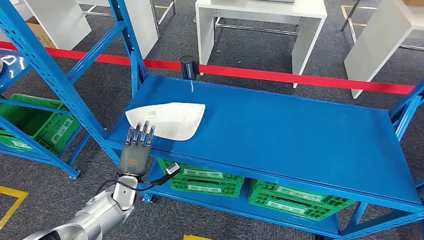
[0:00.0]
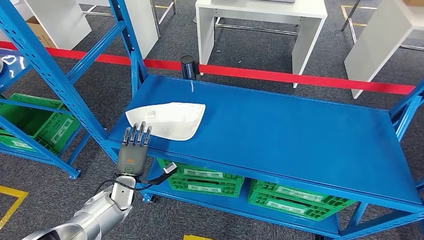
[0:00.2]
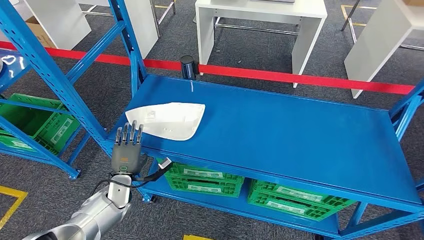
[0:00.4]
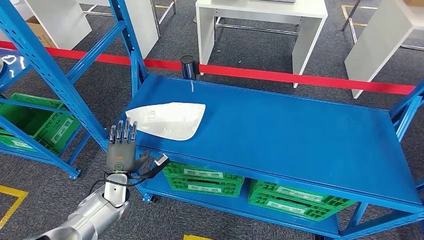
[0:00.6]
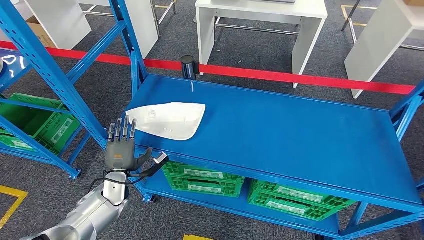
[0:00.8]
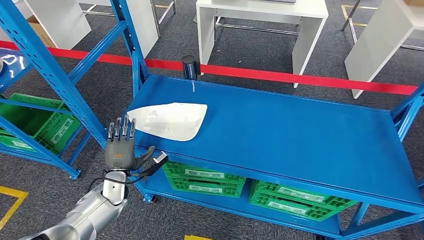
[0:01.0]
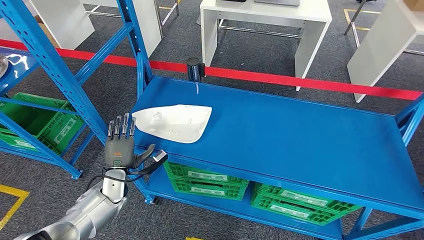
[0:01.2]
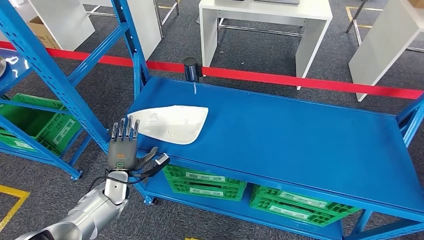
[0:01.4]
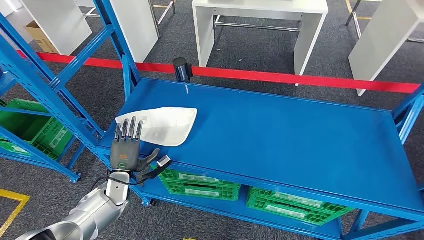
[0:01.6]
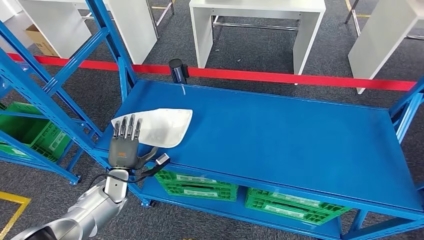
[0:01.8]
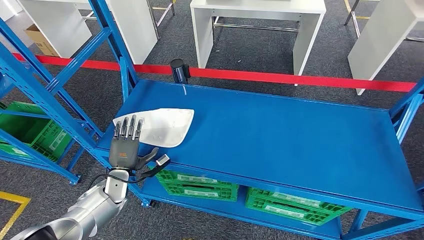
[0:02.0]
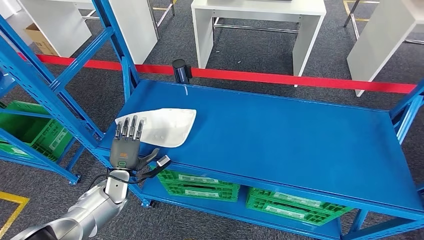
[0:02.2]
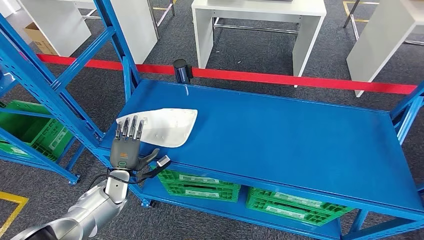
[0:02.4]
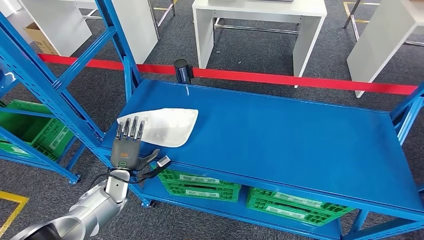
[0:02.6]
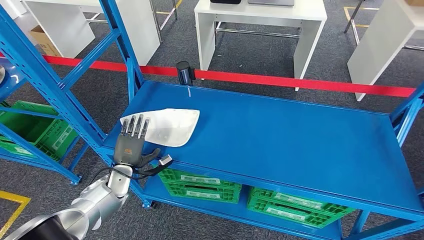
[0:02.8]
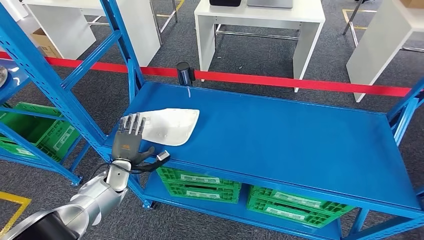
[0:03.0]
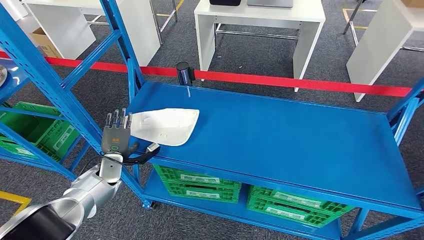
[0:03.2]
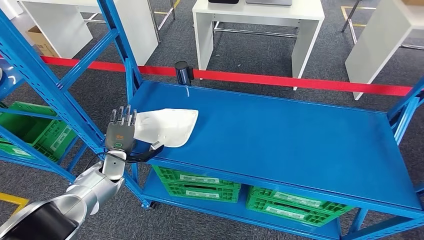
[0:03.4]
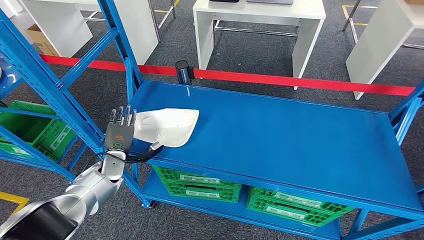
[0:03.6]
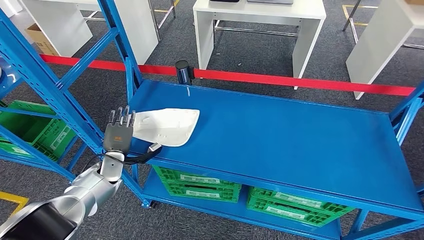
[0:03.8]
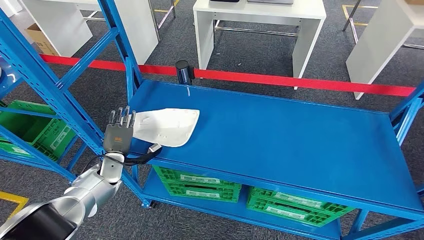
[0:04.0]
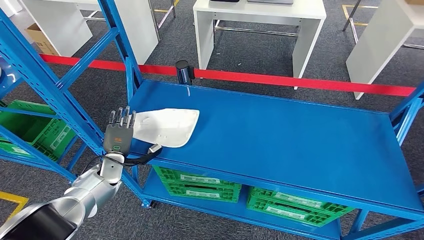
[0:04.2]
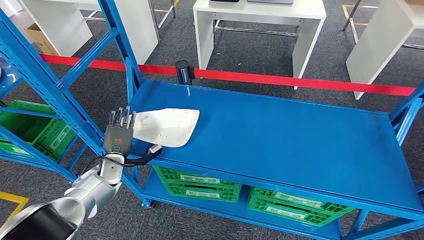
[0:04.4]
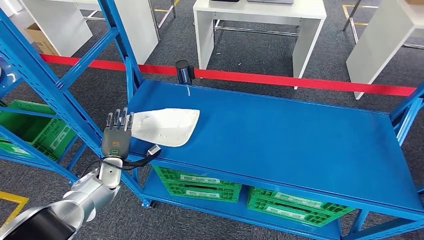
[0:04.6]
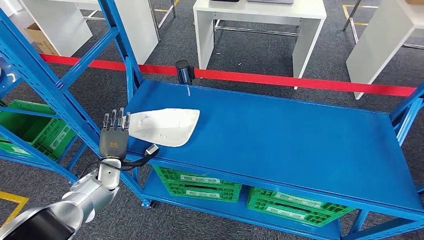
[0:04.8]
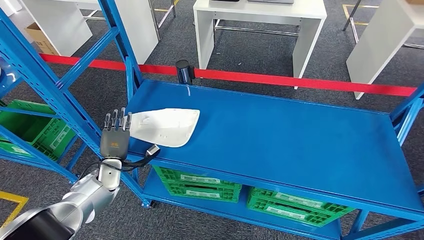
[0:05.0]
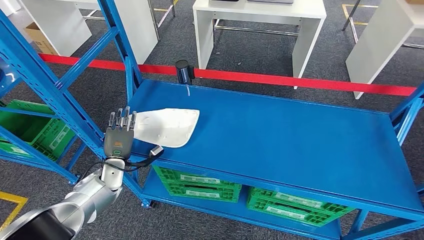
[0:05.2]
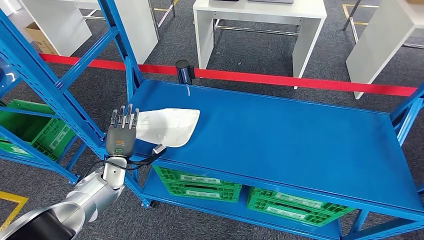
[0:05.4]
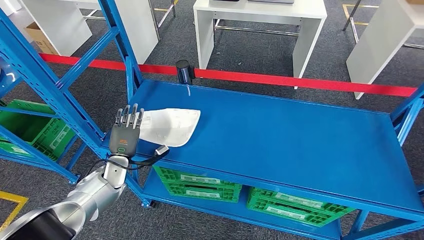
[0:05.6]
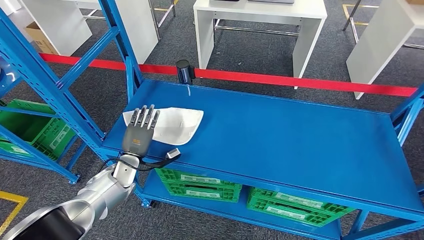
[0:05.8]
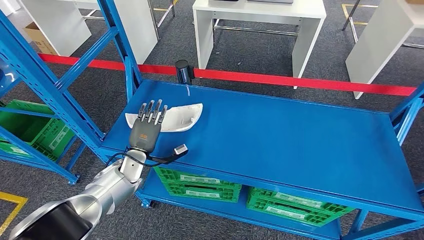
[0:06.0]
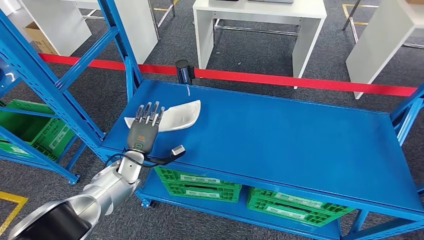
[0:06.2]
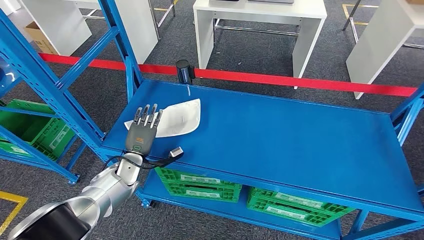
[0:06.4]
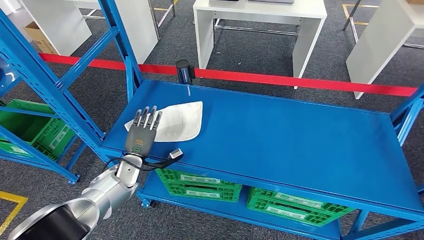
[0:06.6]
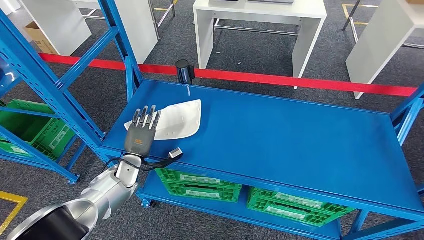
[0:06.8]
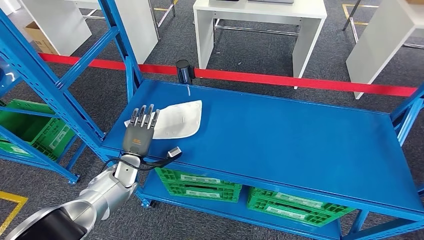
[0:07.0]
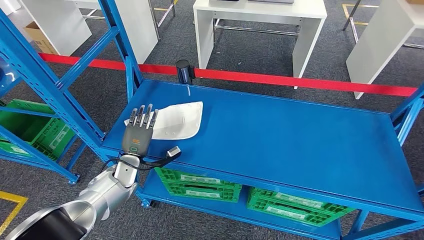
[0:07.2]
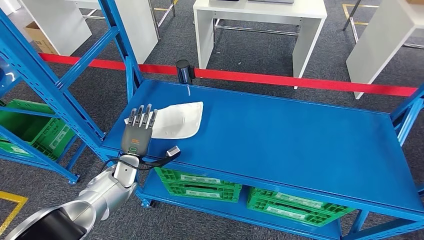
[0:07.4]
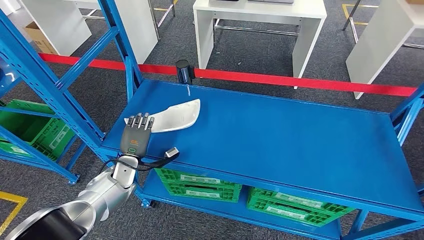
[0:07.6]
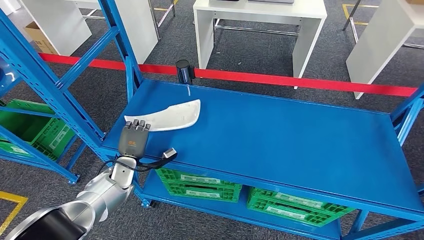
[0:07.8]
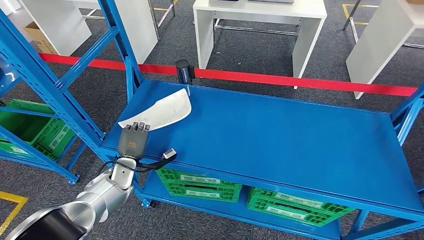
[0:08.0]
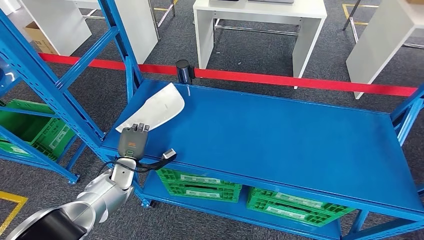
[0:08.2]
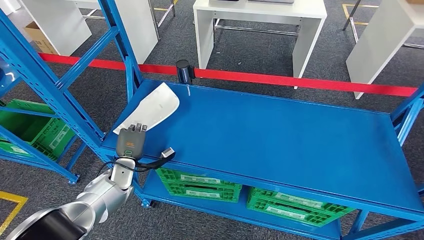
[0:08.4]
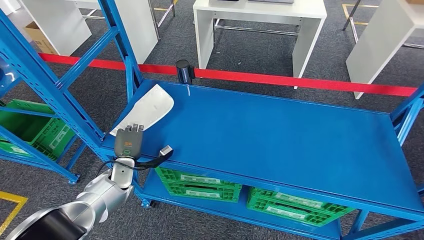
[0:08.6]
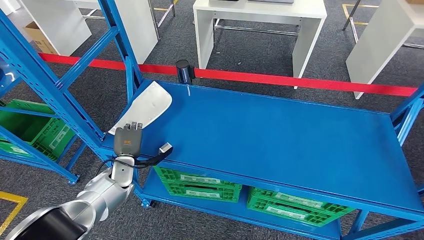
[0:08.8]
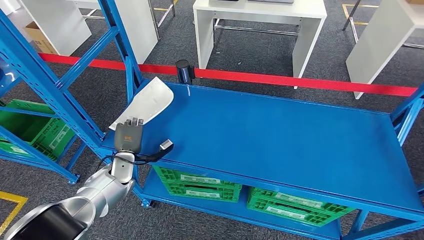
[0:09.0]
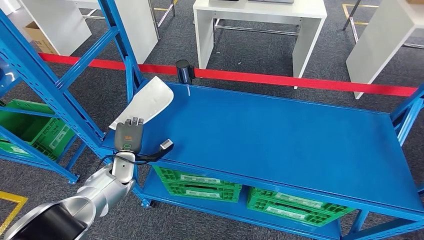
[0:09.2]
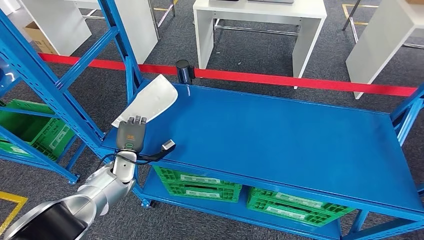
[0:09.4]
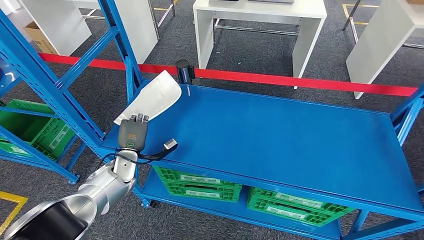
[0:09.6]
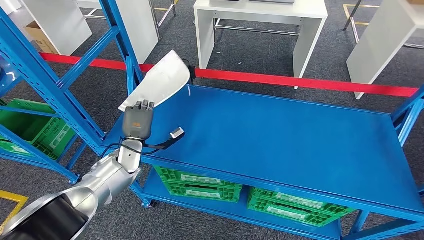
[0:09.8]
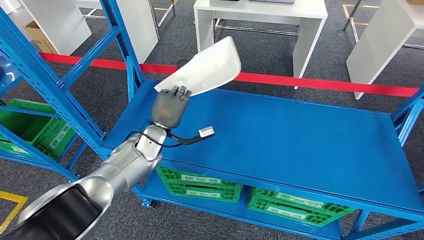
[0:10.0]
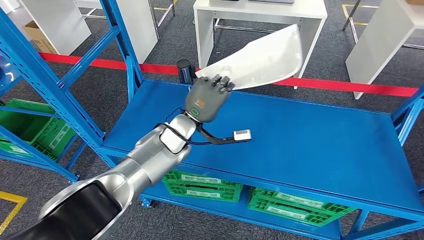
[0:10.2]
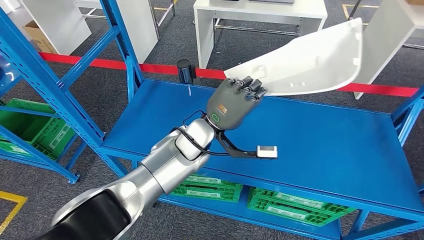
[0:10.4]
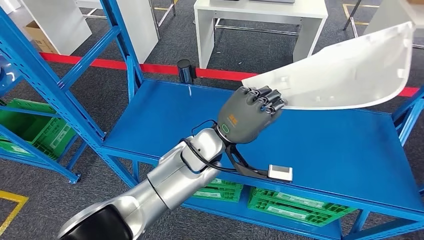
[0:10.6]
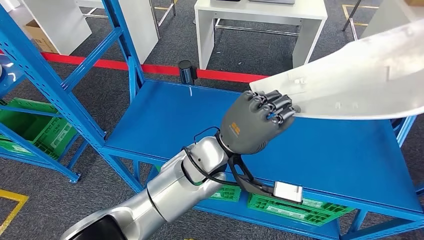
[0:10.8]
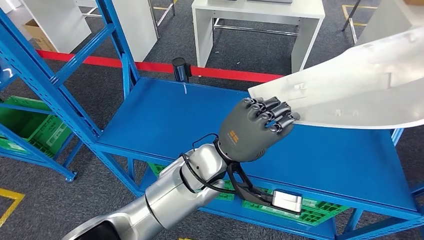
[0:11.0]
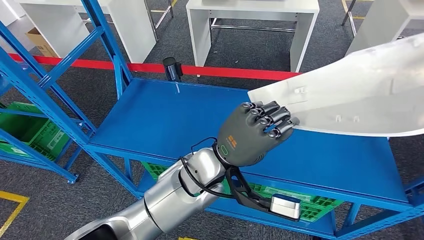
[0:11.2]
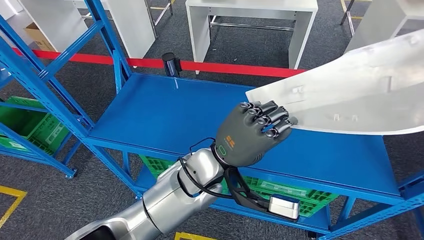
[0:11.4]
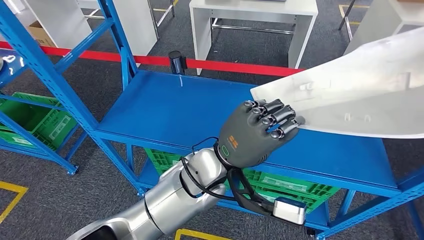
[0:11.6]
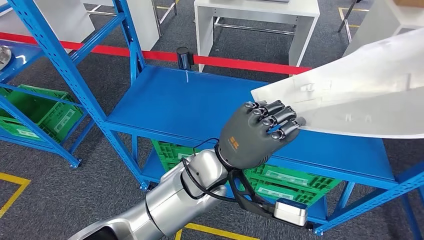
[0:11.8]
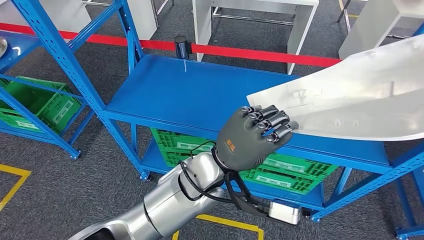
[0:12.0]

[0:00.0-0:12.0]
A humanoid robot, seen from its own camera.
0:03.0 to 0:04.4: The hands move only a little.
0:04.4 to 0:06.0: The left hand travels to the right by approximately 5 cm.
0:06.0 to 0:09.0: There are only small adjustments of the hands.

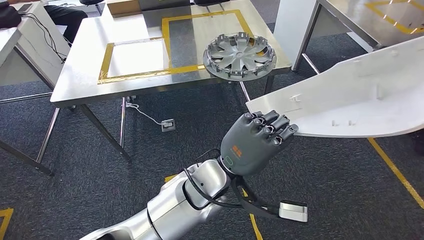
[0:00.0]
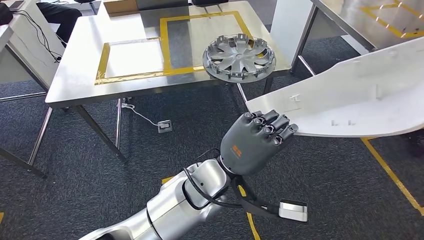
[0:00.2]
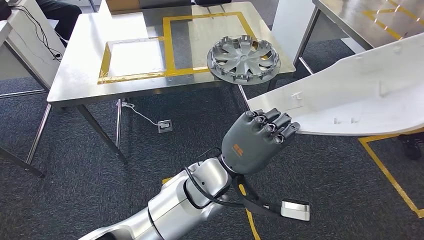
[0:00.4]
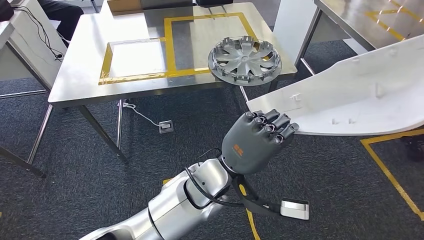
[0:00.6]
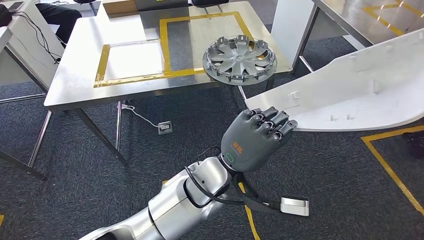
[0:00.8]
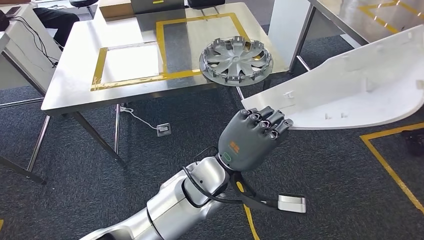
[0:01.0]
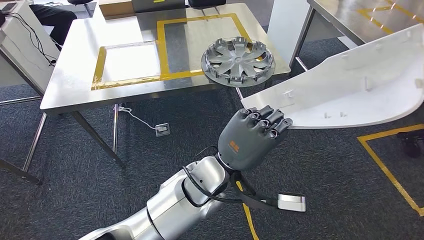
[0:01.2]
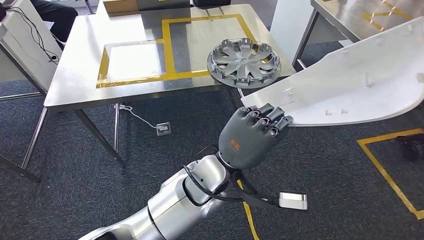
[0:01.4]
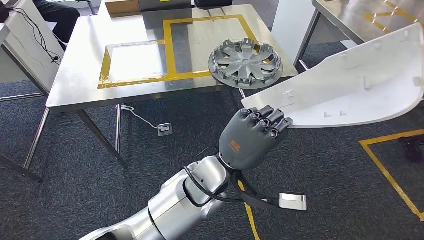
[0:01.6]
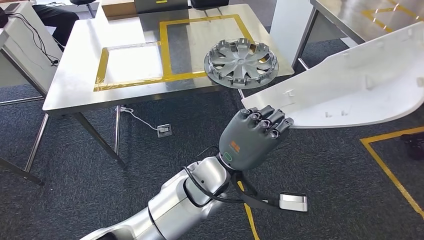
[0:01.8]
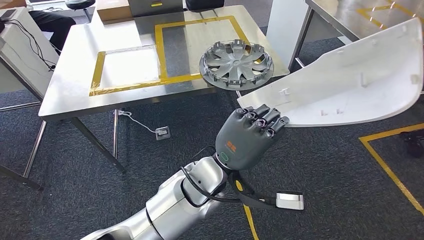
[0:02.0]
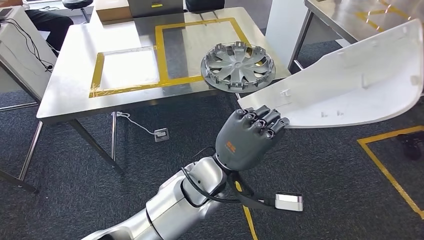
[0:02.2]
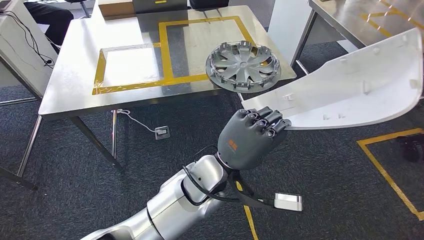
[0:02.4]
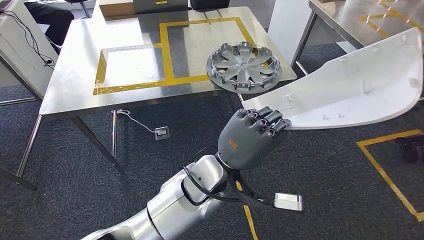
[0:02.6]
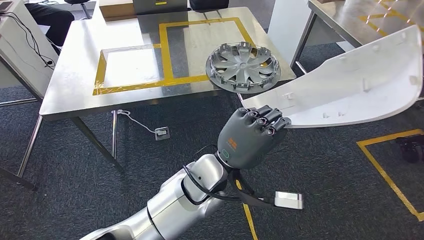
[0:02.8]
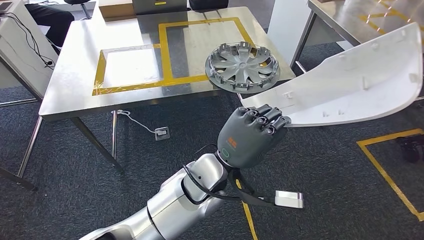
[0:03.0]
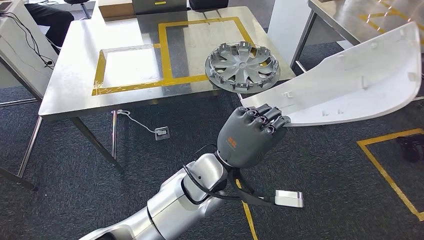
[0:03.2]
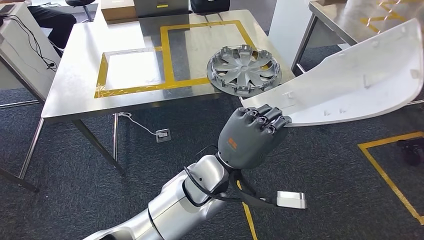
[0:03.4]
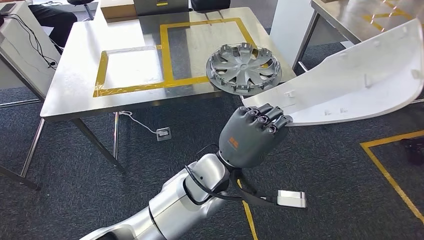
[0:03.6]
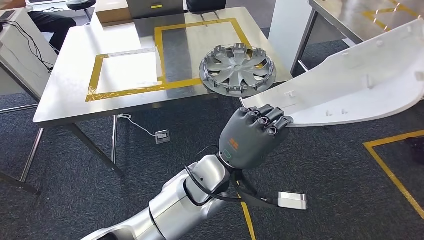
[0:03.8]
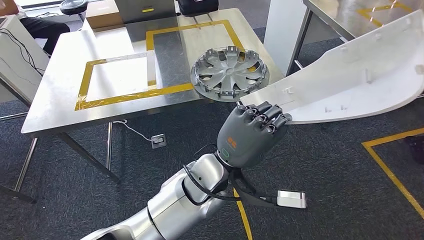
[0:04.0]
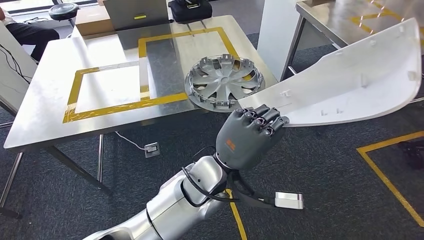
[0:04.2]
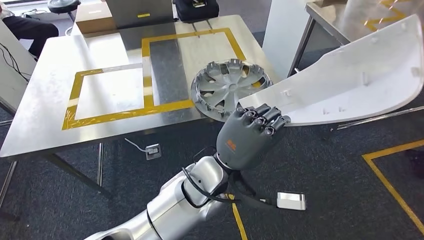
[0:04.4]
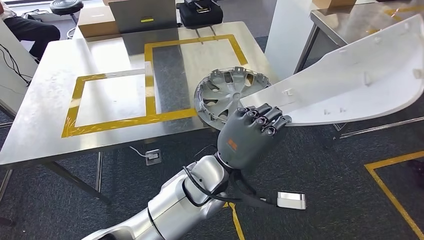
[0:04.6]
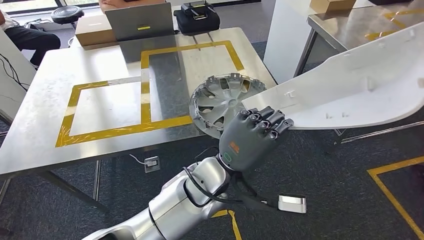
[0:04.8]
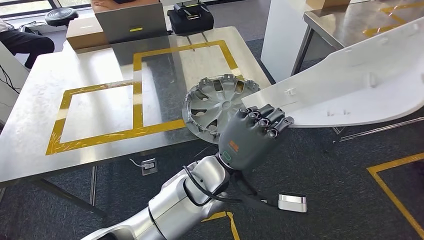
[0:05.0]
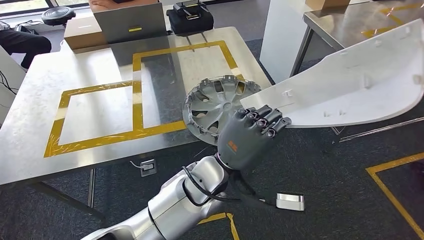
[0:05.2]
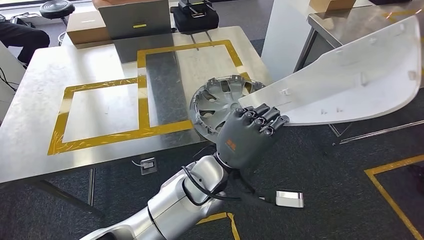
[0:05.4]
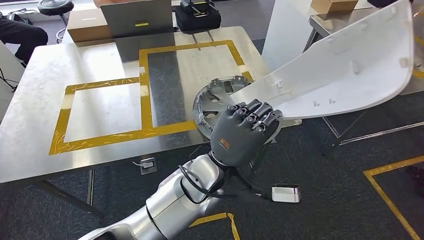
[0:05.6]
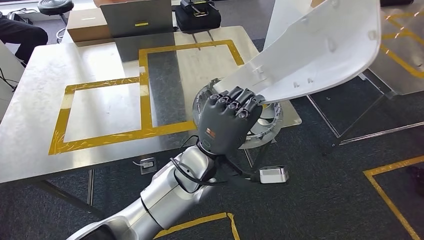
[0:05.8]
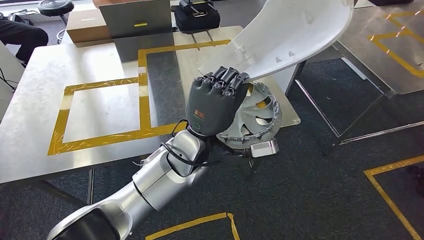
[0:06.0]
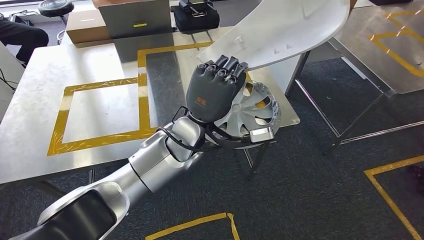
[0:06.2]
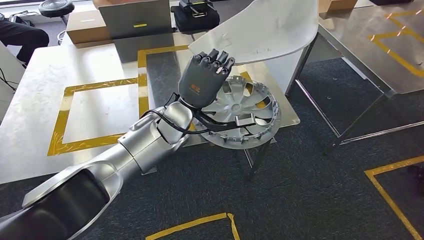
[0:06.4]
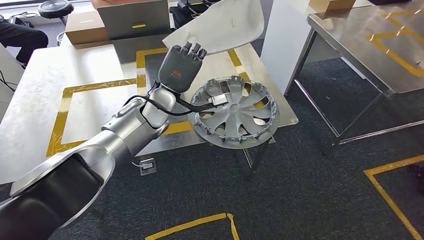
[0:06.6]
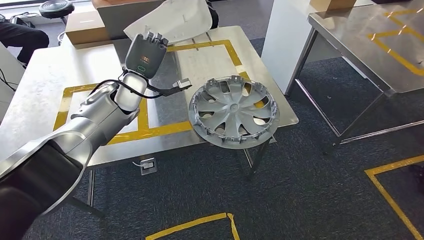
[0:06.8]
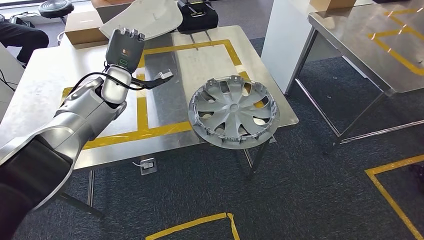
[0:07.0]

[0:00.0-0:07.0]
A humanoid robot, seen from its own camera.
Step, 0:00.0 to 0:04.8: Bring the small component to the front of the workbench.
0:01.4 to 0:02.8: The hands stay close to where they were, moving slightly.
